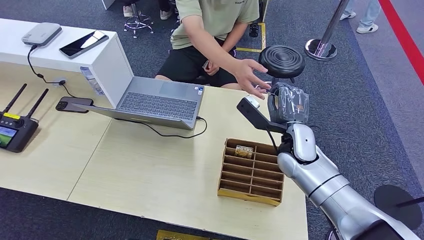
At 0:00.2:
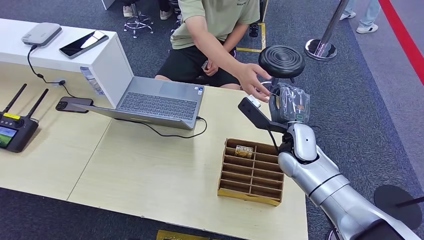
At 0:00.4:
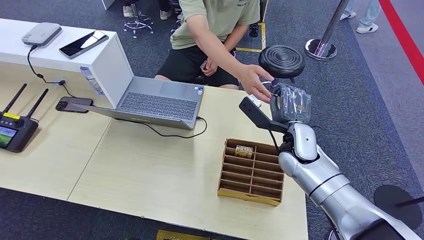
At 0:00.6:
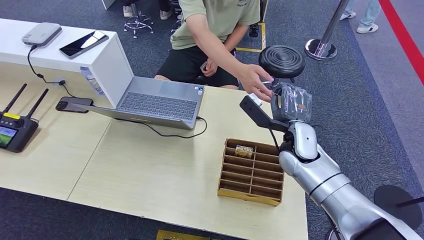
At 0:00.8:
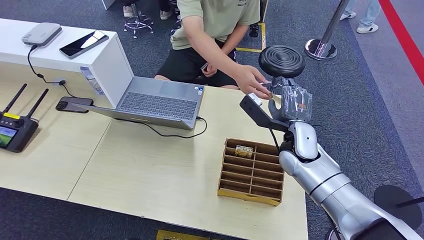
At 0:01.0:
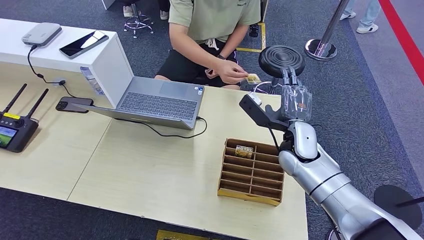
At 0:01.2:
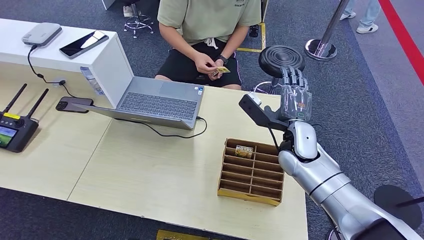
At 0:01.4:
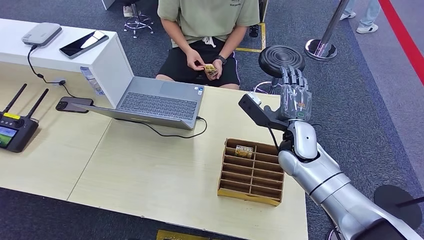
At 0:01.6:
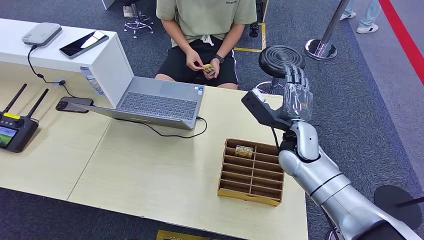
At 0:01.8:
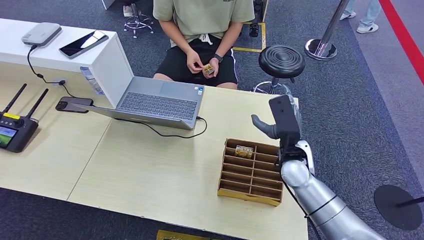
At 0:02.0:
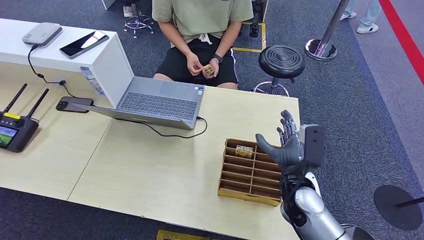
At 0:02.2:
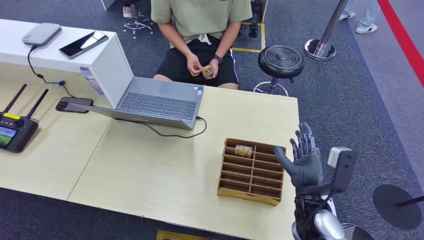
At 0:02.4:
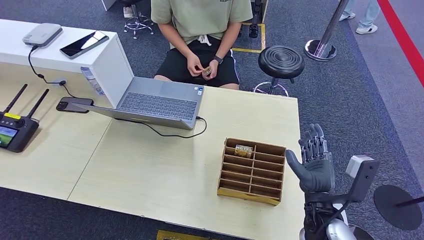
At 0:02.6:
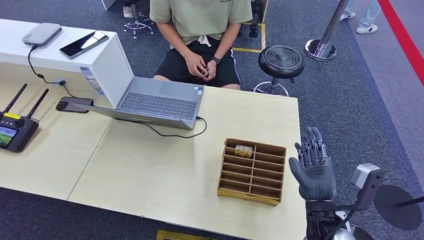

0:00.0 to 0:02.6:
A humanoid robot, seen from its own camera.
Step, 0:00.0 to 0:02.6: Hand the key card to the target.
0:00.0 to 0:01.2: Neither hand changes place.
0:01.2 to 0:02.6: The right hand heads backward, covering approximately 20 cm.
